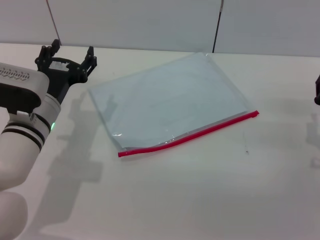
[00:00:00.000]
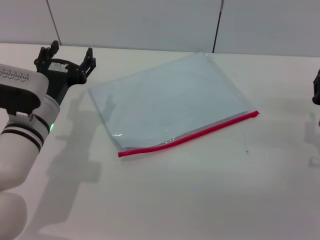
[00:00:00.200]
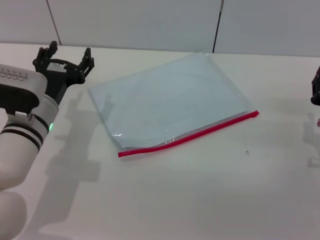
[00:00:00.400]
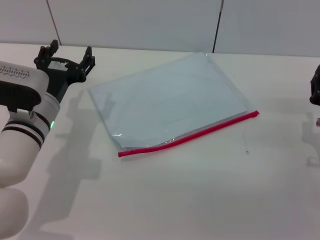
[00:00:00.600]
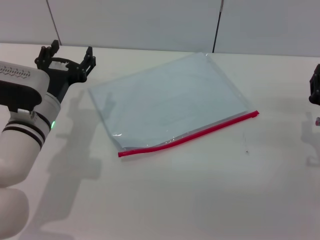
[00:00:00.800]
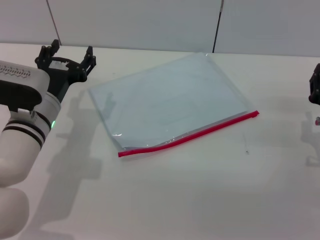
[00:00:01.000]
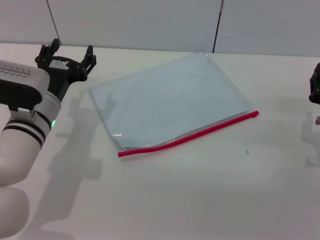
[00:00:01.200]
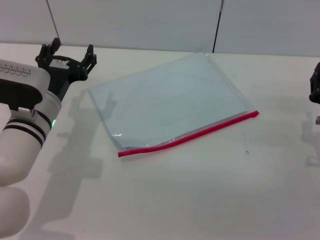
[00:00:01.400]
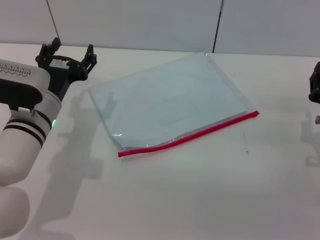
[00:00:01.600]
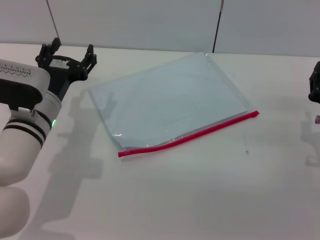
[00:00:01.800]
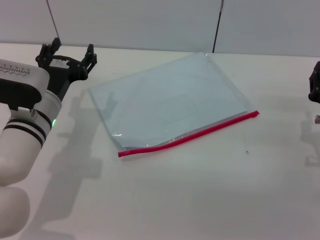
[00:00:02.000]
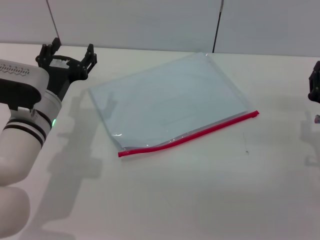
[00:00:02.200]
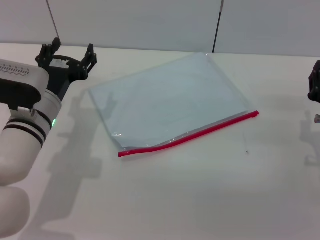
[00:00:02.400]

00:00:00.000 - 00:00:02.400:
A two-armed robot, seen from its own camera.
00:00:00.000 - 00:00:02.400: The two grippers keep their place.

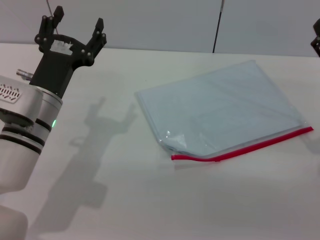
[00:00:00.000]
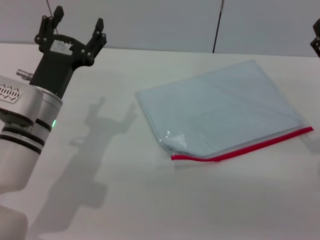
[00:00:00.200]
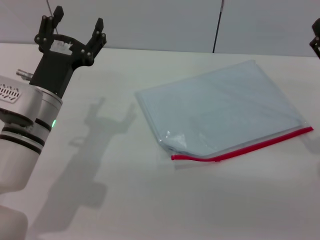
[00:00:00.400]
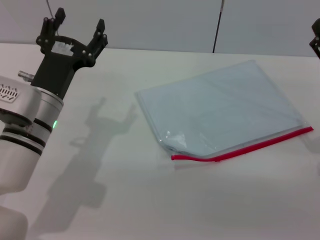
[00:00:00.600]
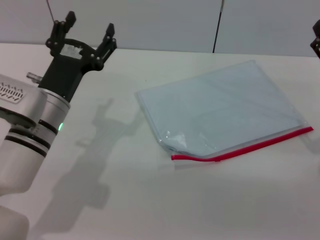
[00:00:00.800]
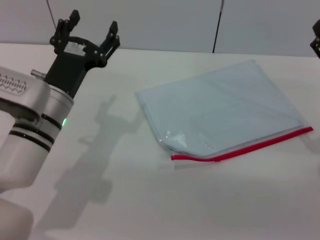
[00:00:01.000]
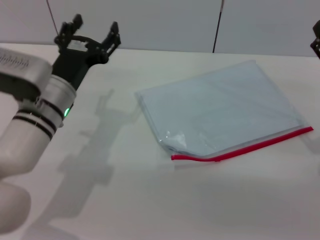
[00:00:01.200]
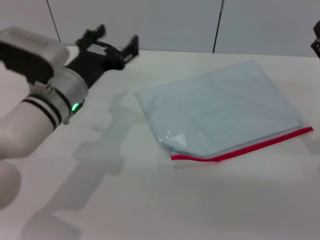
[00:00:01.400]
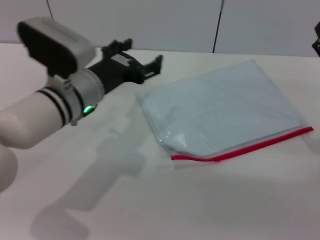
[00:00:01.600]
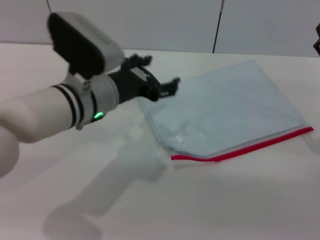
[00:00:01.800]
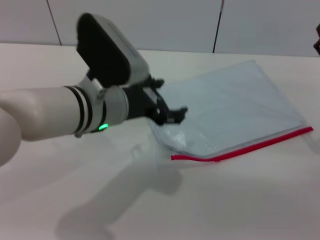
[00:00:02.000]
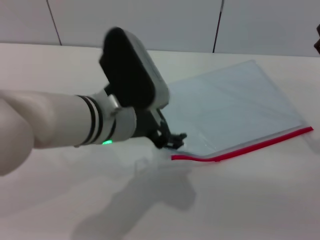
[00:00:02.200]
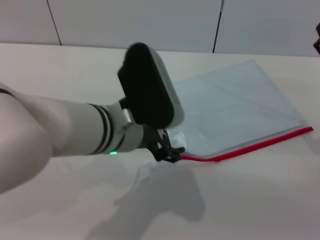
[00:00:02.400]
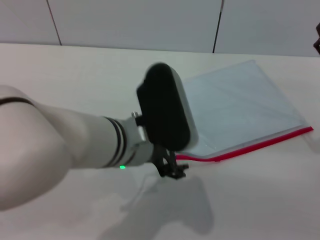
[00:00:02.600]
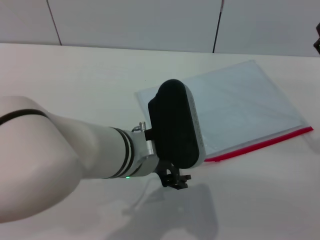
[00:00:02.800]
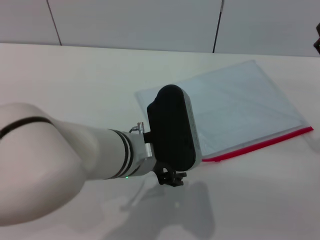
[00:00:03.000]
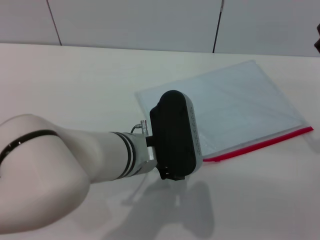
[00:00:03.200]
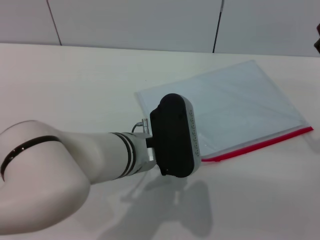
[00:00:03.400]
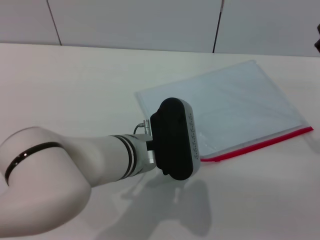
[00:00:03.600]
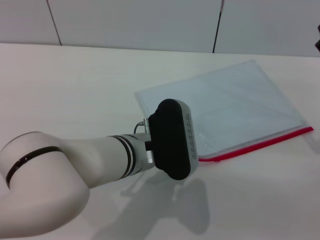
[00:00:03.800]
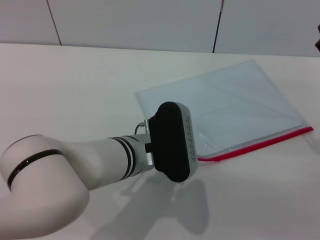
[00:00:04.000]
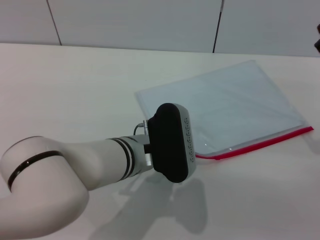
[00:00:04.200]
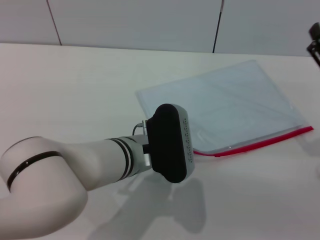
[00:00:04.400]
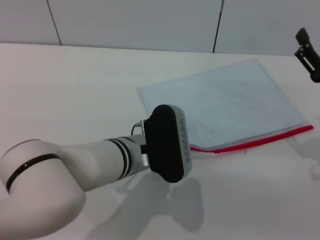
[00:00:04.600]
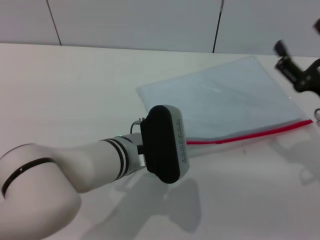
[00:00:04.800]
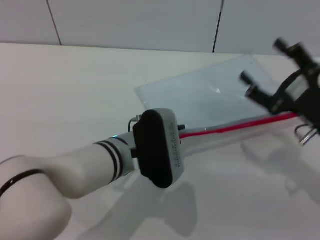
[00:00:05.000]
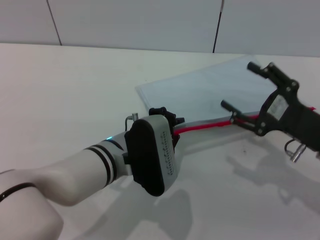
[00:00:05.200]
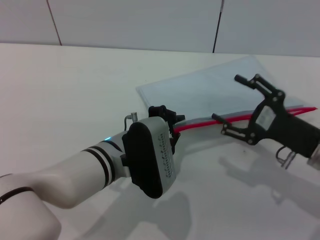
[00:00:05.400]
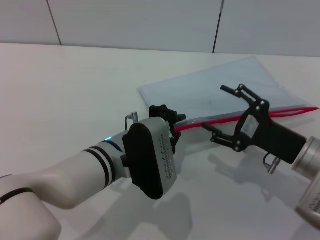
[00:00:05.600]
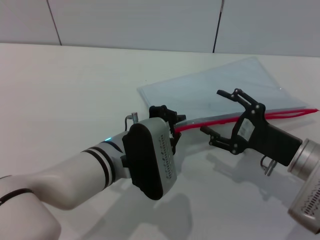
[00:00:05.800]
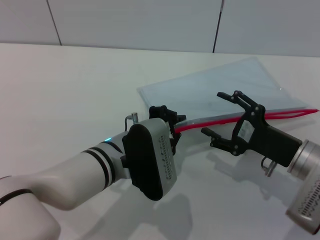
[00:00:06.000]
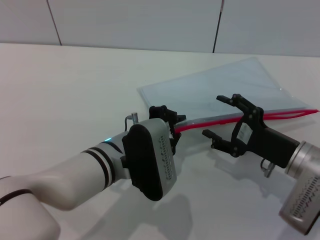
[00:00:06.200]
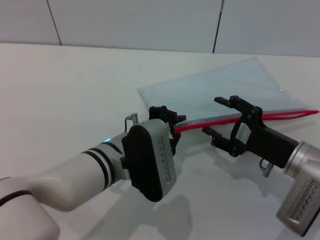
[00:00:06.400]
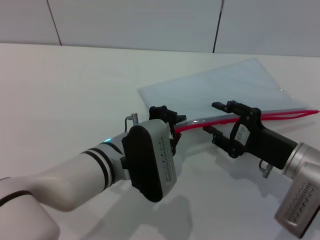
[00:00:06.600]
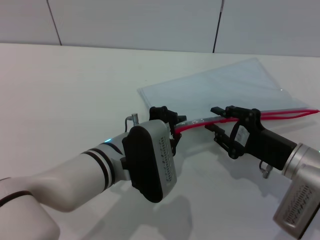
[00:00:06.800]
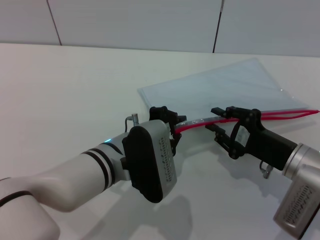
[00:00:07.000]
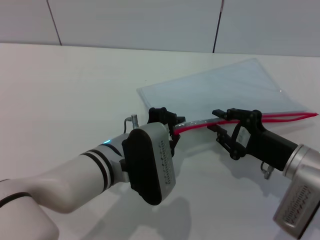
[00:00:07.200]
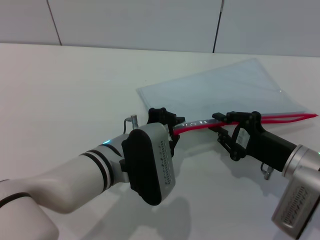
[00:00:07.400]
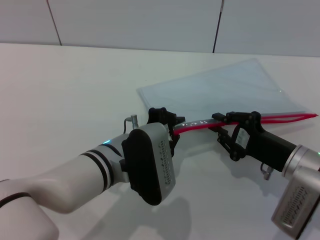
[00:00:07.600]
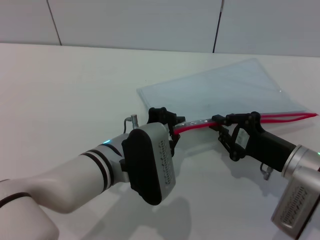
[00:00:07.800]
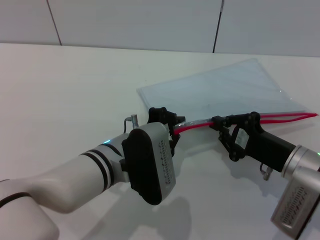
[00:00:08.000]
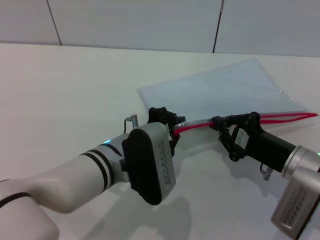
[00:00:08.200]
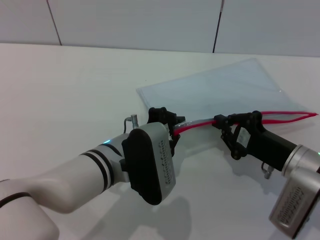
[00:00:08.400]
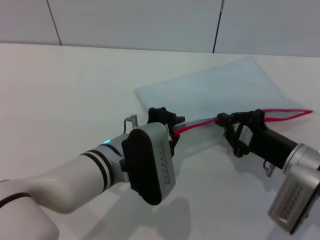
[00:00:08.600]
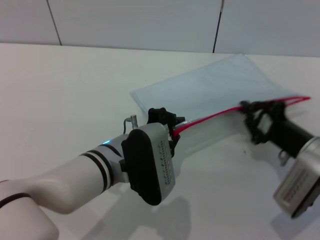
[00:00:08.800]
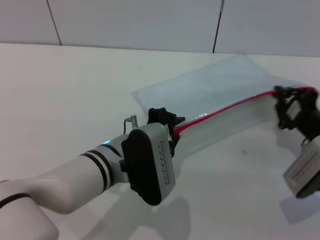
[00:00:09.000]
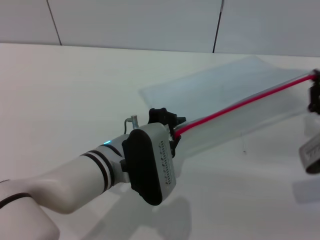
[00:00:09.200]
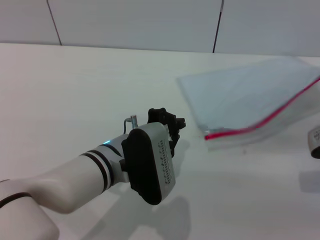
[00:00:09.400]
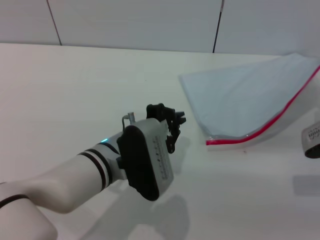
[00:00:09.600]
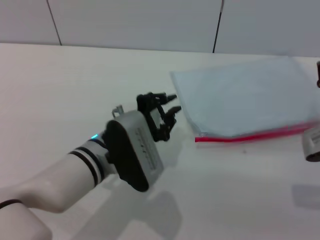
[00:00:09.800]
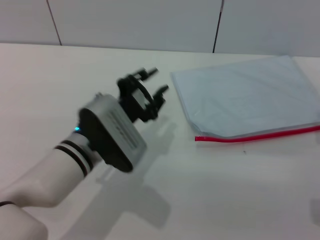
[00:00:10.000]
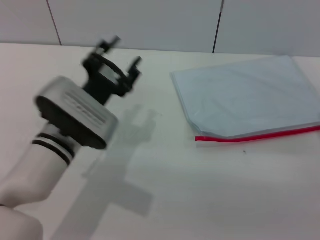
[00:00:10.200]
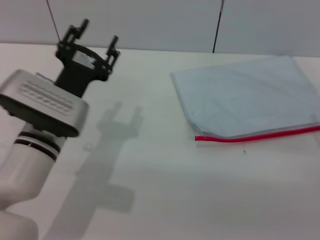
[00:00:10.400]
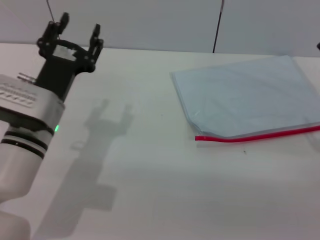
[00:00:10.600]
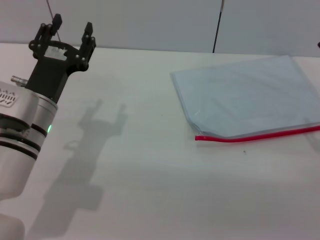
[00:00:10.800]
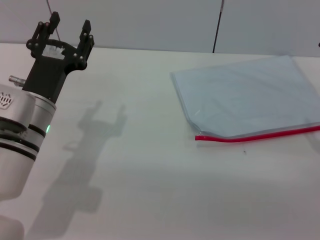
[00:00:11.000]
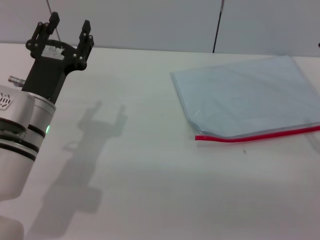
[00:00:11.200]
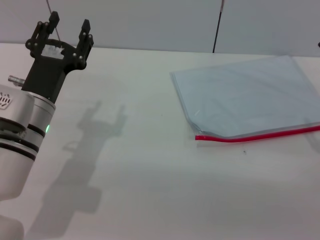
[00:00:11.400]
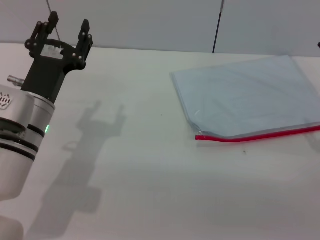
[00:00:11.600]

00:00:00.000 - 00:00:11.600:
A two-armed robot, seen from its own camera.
Step, 00:00:00.000 - 00:00:05.800: Pick up the transparent plastic bag with the left gripper.
Step, 00:00:06.000 - 00:00:09.200: Pulling up the zipper on the transparent plastic bag with the right gripper to close it.
Step, 00:00:09.600 - 00:00:10.000: Place the transparent plastic bag.
00:00:01.400 - 00:00:02.800: The left gripper travels to the right and backward by roughly 15 cm.
00:00:02.800 - 00:00:04.400: The left gripper is displaced downward by approximately 5 cm.
00:00:04.400 - 00:00:05.800: The right gripper goes approximately 5 cm to the left. Meanwhile the left gripper closes its fingers.
00:00:05.800 - 00:00:07.200: The right gripper closes up.
00:00:07.200 - 00:00:08.800: The grippers move only a little.
00:00:08.800 - 00:00:10.200: The left gripper shifts some 5 cm to the left, and opens. Meanwhile the right gripper changes place by roughly 5 cm, and opens.
00:00:10.200 - 00:00:11.600: The right gripper opens its fingers; the left gripper heads to the left, covering some 5 cm.

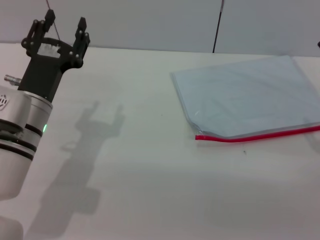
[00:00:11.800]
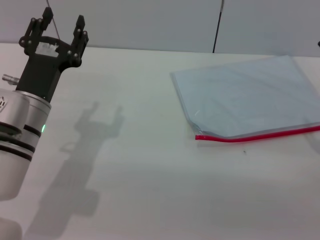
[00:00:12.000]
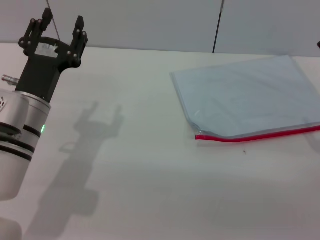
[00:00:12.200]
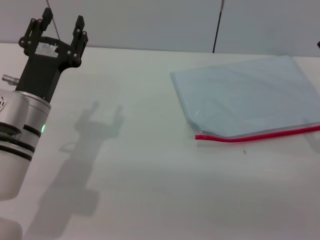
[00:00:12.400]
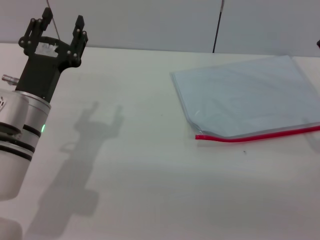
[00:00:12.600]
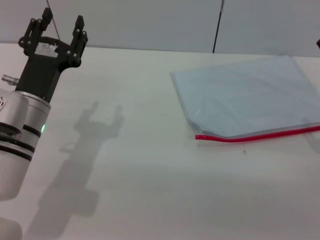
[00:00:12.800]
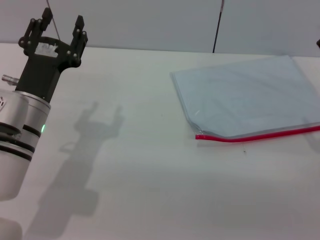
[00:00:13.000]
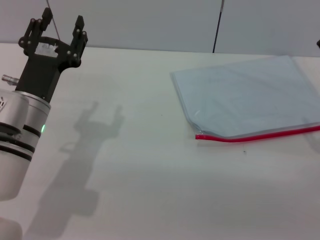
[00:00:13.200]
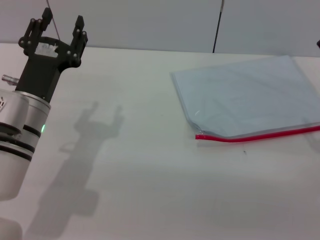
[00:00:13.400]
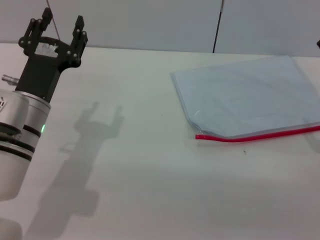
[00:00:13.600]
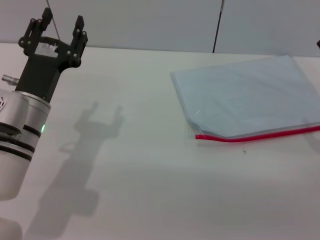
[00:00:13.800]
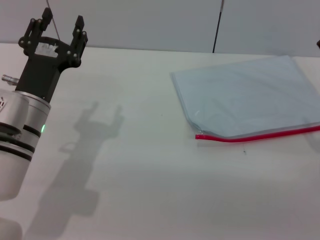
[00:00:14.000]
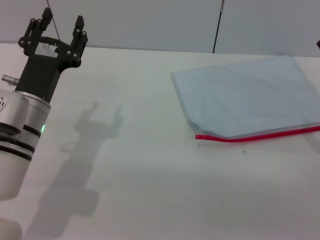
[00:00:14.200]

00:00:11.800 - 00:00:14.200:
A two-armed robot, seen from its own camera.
00:00:11.800 - 00:00:14.200: The two grippers keep their place.
